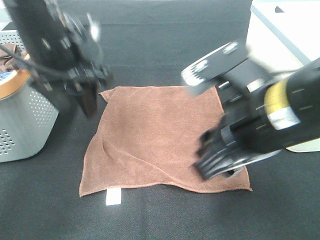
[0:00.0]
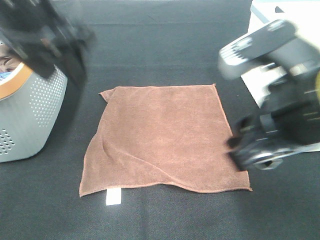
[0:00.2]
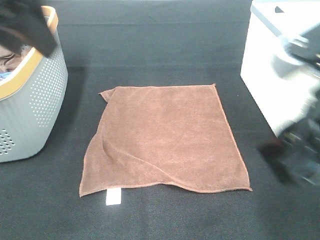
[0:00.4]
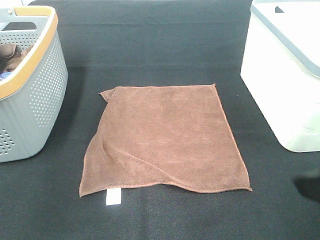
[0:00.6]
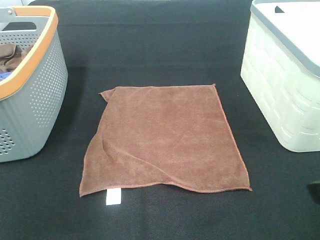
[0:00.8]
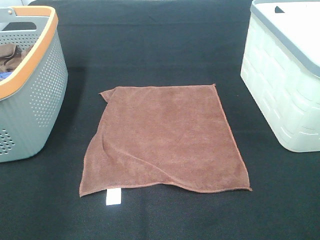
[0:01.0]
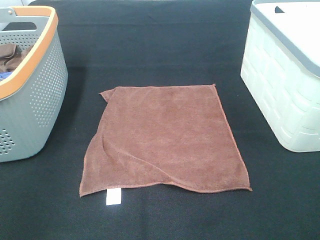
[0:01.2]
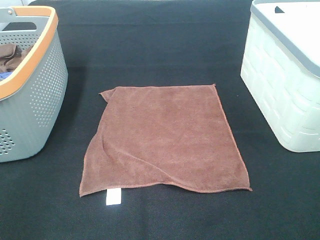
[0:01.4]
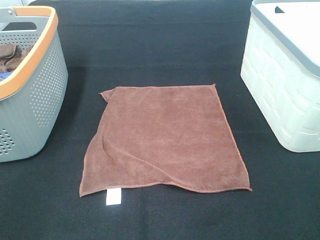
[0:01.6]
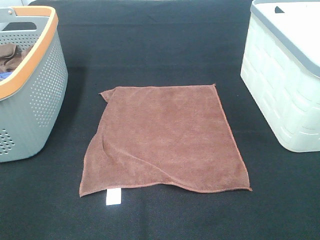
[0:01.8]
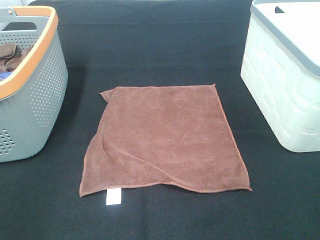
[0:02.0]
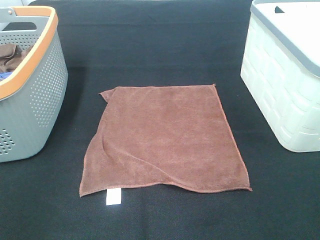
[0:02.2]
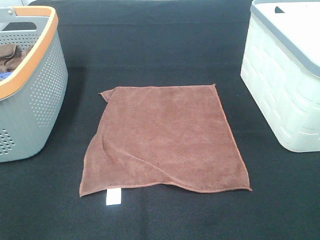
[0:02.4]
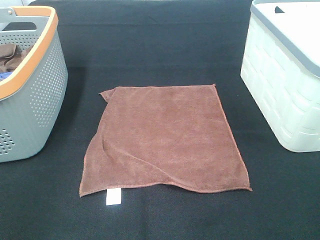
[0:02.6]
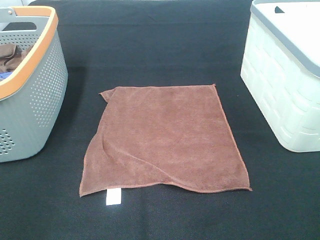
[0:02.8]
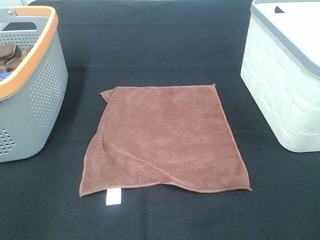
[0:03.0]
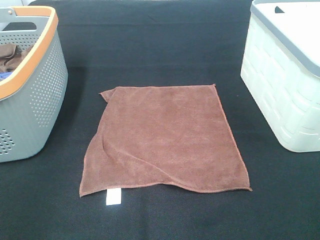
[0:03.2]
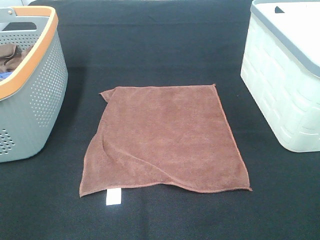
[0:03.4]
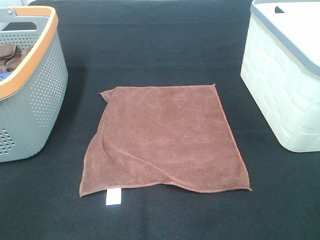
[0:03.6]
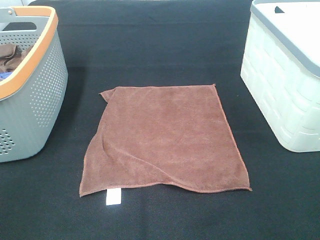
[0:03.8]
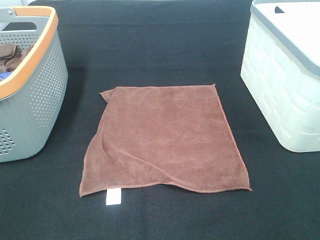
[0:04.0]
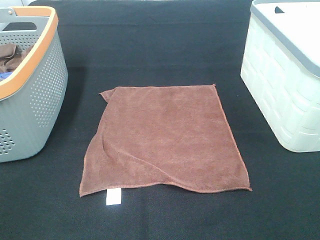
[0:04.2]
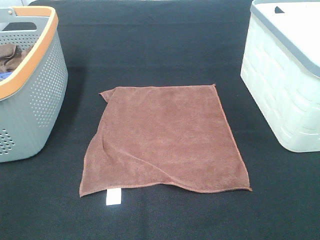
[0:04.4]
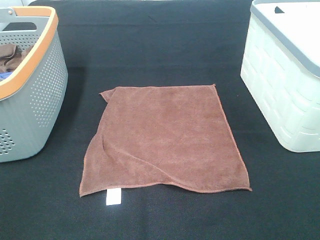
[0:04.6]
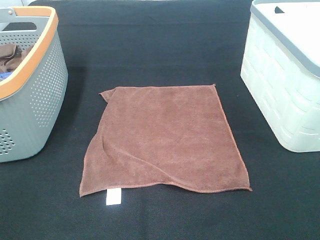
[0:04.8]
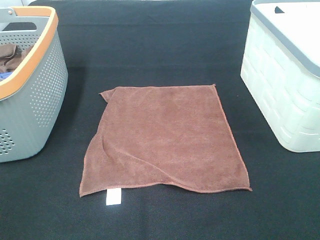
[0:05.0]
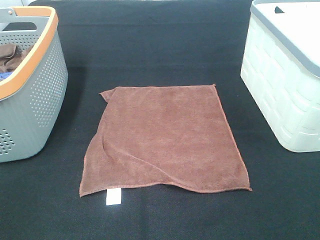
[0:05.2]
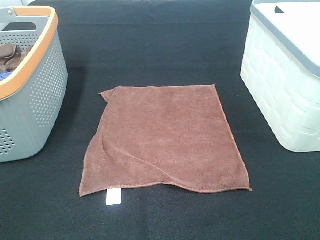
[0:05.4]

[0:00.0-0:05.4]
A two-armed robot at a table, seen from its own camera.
Task of the whole recording: Remove the towel and place it.
0:00.0 to 0:01.4: The right gripper goes about 15 cm to the right and backward. Meanwhile the left gripper goes approximately 35 cm backward and to the left.

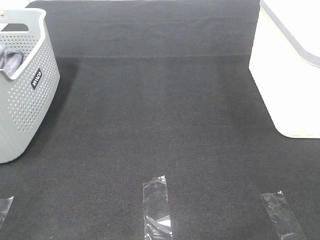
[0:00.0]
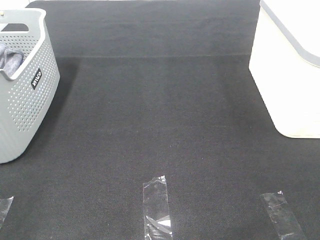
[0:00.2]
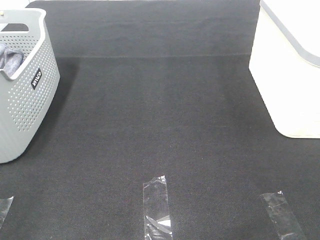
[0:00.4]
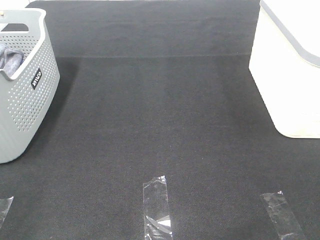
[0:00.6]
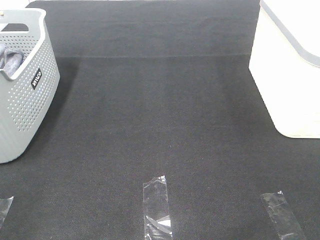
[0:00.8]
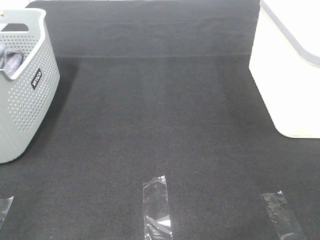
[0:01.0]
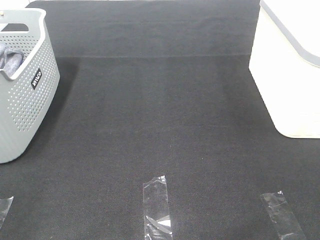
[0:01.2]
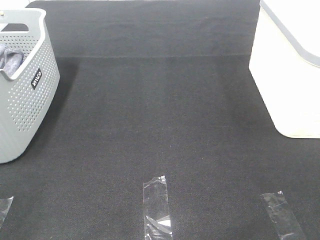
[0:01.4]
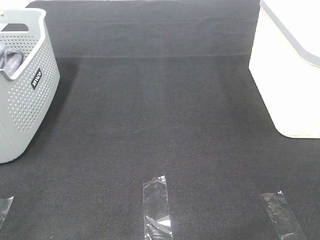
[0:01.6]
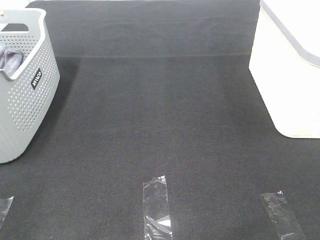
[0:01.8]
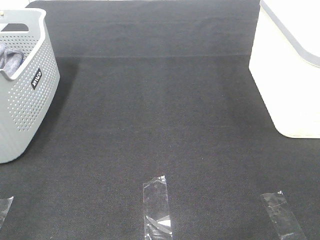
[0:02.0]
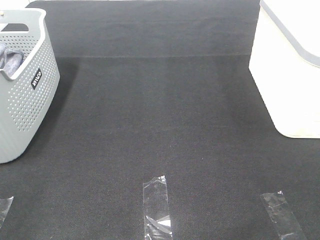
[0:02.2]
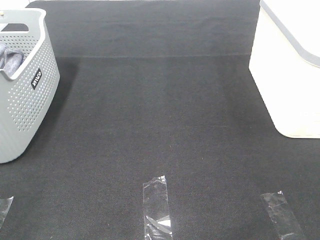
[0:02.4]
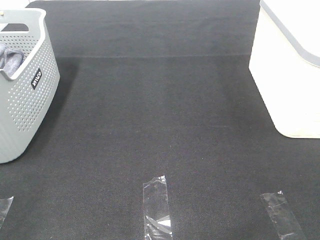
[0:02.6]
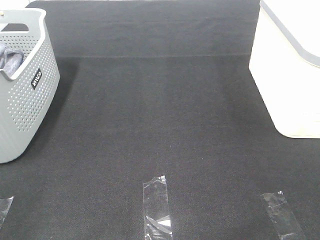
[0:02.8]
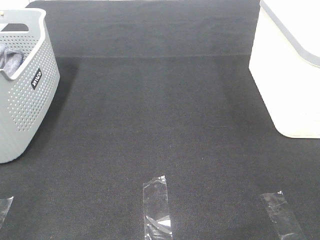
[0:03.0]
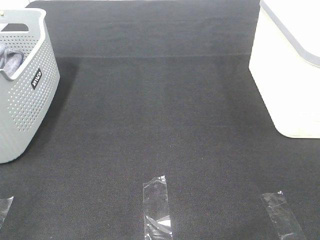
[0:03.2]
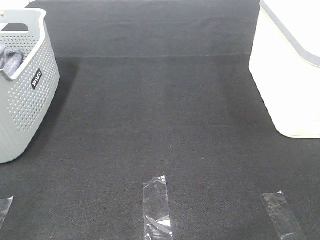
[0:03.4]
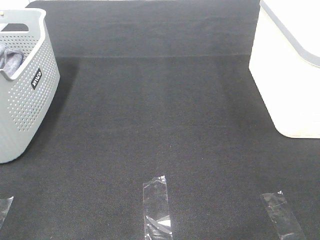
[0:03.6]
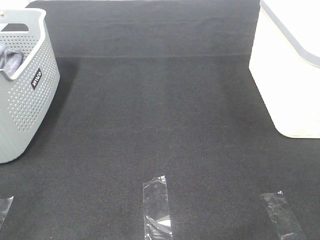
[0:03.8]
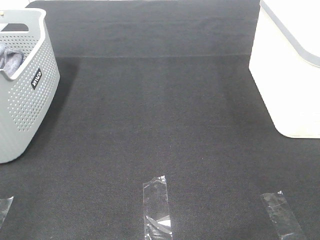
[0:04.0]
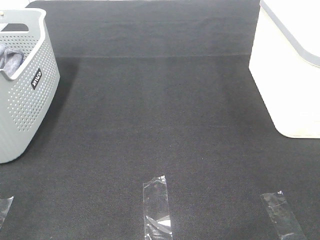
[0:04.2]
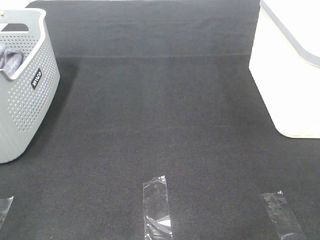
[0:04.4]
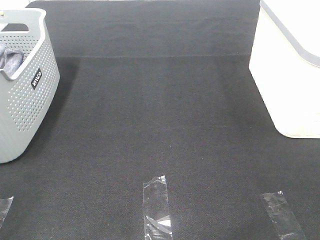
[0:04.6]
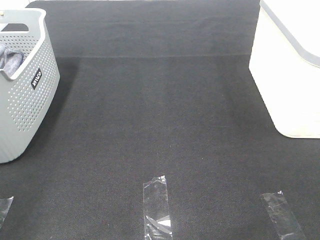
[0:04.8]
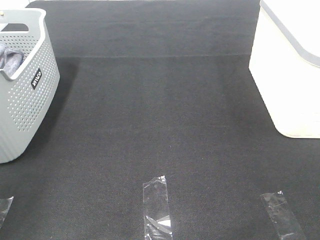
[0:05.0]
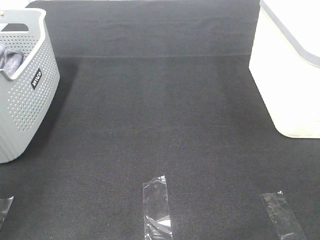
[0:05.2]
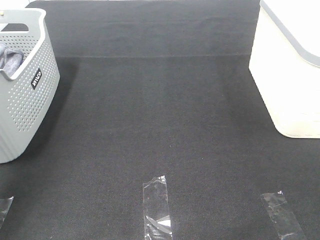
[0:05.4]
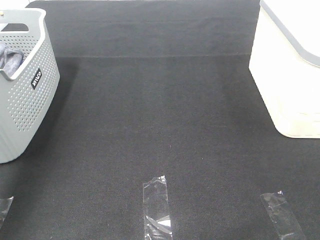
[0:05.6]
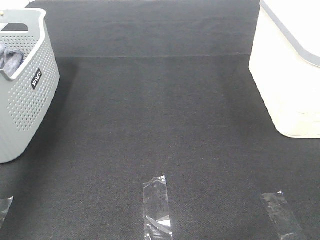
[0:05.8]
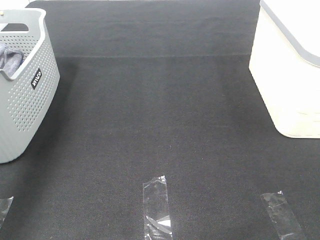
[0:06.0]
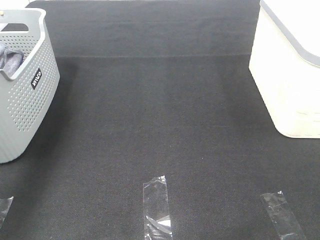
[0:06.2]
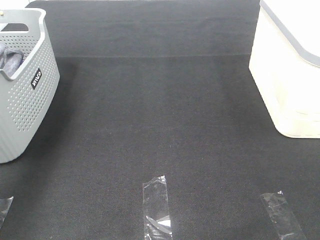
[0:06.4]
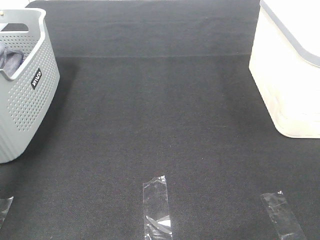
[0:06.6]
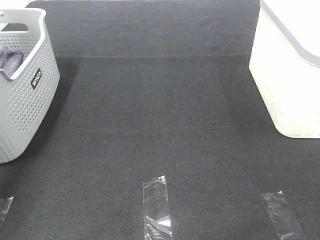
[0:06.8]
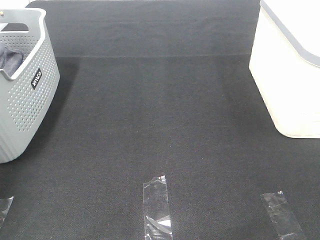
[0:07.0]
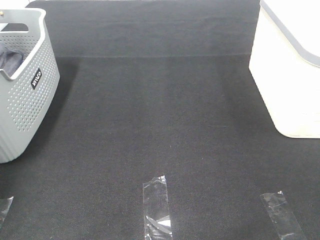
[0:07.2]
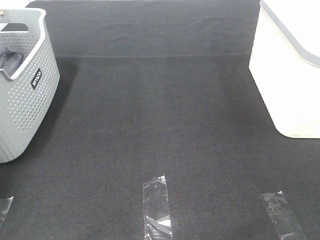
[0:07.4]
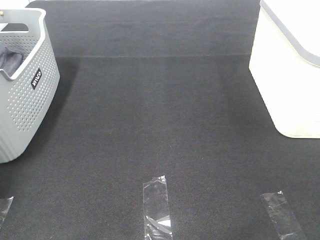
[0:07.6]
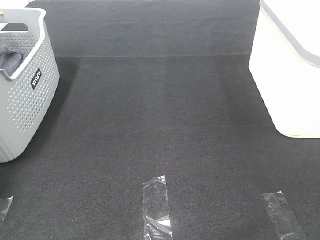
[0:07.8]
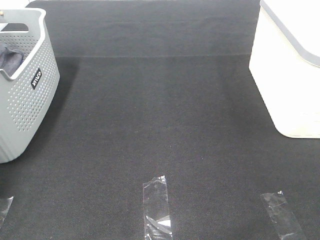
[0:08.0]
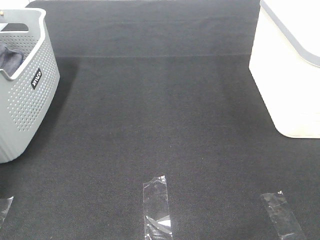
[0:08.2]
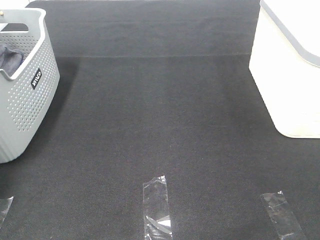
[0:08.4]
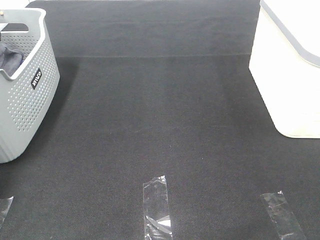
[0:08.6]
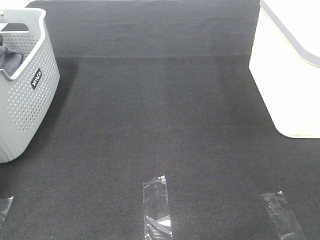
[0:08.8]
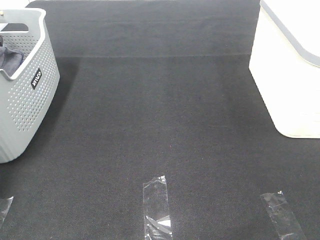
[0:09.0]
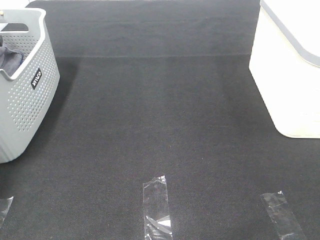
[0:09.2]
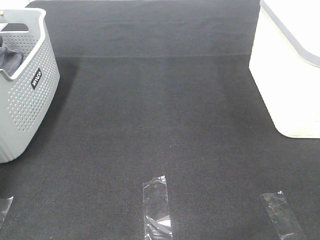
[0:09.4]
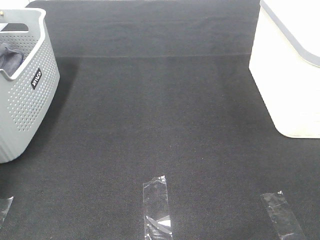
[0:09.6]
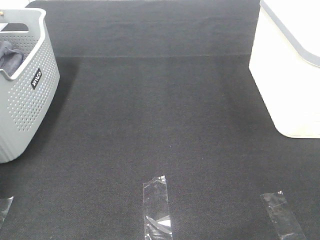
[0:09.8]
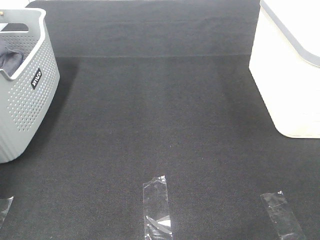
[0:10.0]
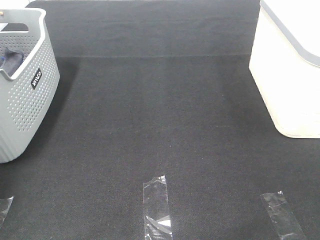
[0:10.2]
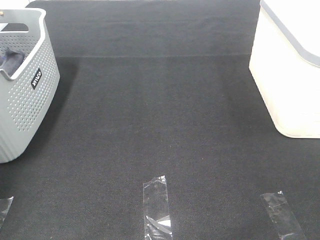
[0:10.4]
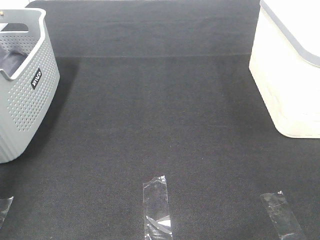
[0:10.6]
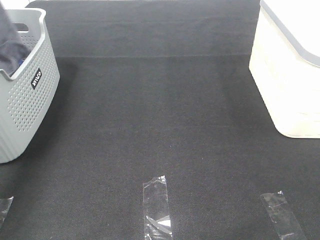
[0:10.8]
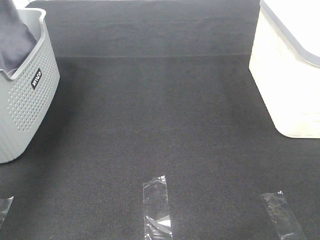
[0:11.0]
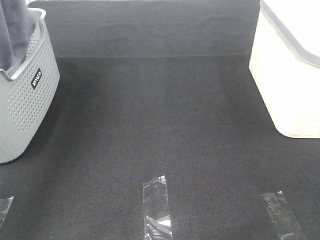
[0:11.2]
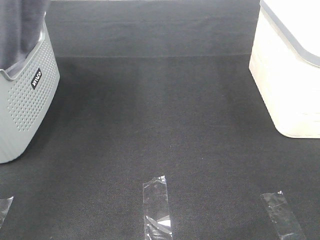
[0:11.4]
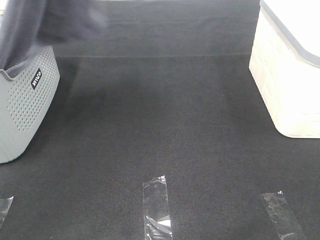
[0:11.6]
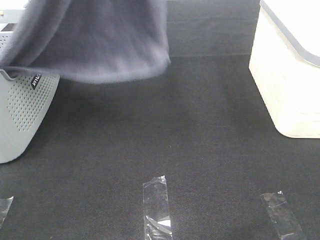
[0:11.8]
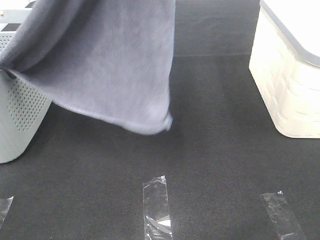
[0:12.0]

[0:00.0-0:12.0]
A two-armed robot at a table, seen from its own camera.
Task of the whole recording: Remove the towel and place it.
0:00.0 to 0:03.0: Both grippers stay put.
0:04.4 to 0:06.0: The left gripper moves forward, approximately 35 cm.
0:06.0 to 0:07.6: The left gripper travels forward, downward and to the left by approximately 20 cm.
0:09.0 to 0:10.4: The left gripper moves upward, approximately 15 cm, and closes up.
0:10.4 to 0:12.0: The left gripper shifts approximately 40 cm to the right, backward and upward.

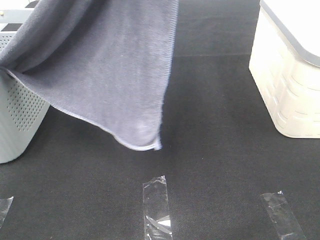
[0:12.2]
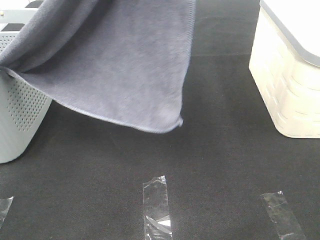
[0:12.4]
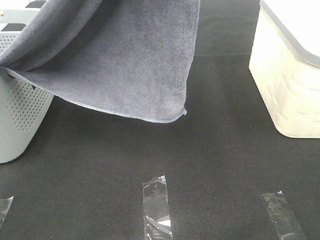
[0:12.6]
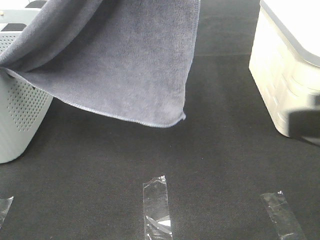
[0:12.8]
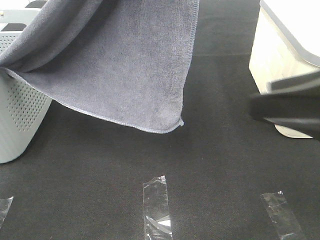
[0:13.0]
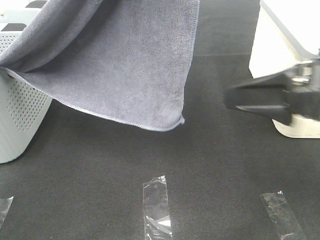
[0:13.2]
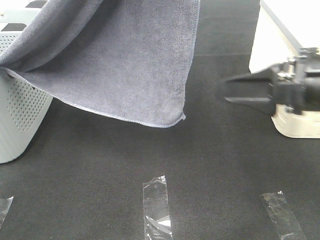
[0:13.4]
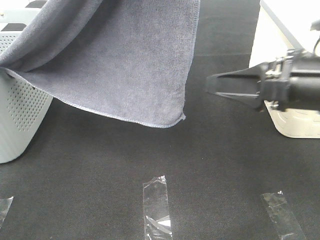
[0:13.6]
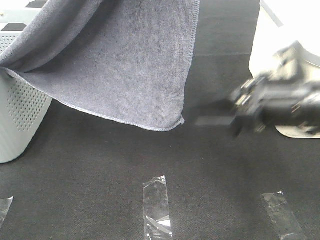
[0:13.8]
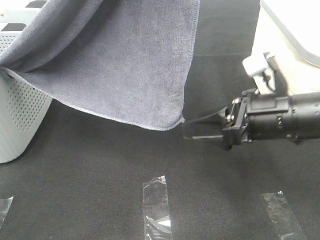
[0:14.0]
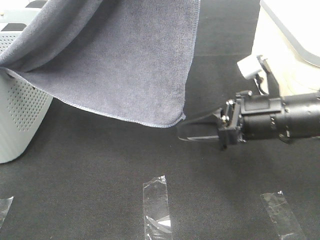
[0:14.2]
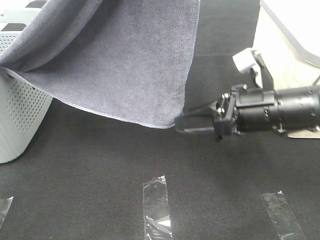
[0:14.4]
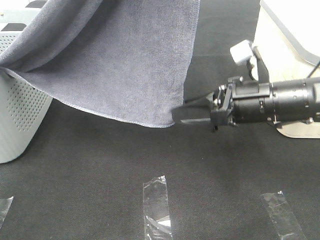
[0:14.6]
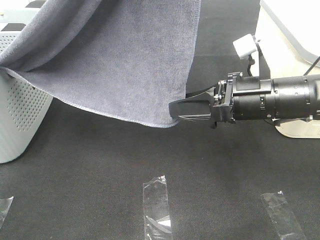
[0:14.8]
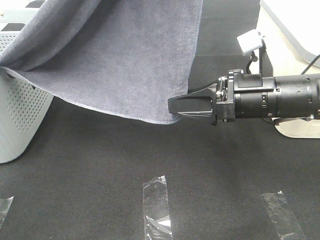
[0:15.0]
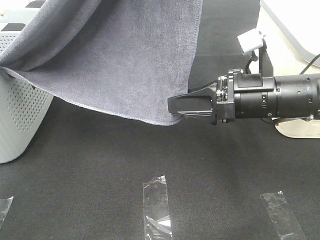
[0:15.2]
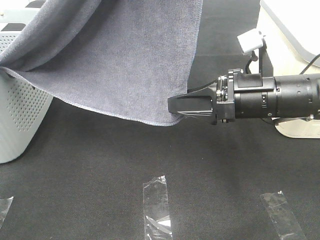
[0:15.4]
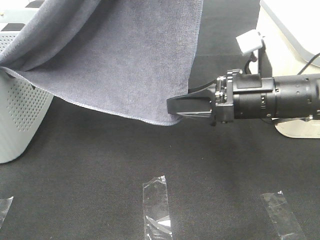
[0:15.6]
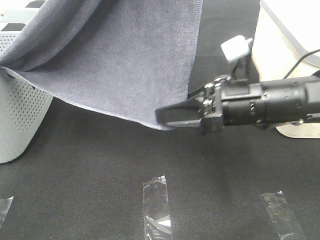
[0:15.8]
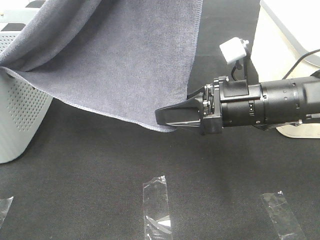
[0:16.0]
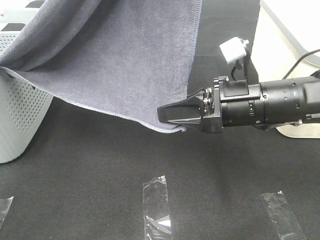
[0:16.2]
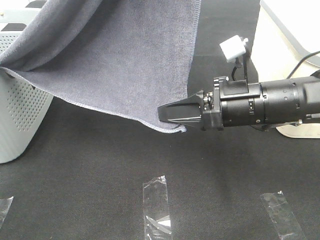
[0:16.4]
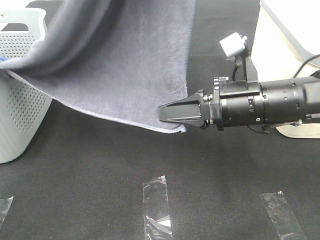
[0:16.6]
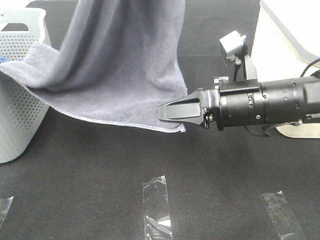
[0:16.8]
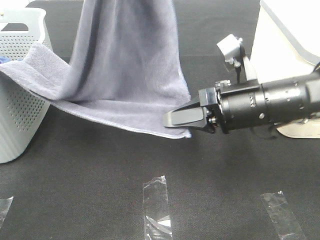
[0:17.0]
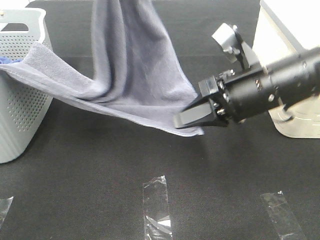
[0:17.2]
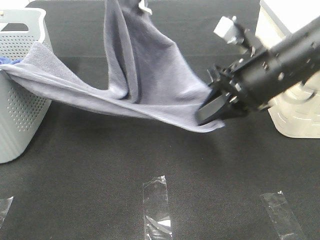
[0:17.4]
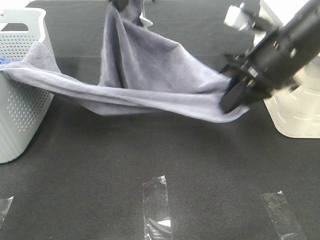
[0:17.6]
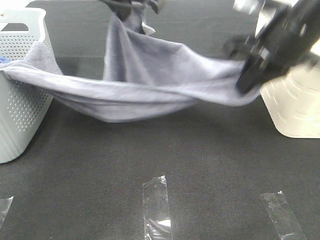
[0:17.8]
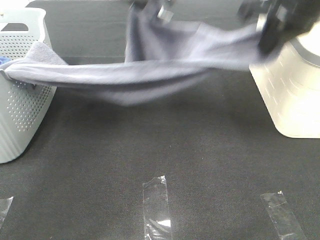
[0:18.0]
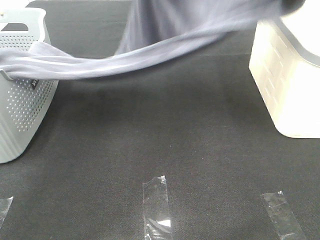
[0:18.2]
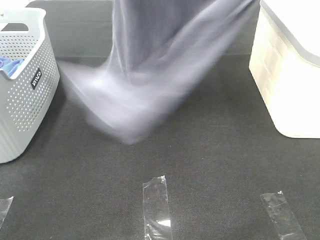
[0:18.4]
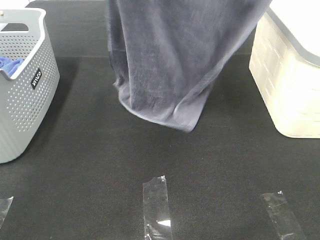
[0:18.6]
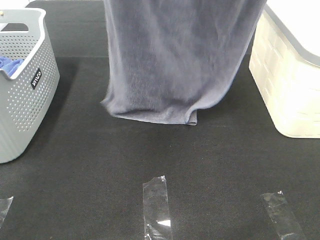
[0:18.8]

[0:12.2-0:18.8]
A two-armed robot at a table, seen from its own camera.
Task of the whole recording: Remove the towel and place it.
Step, 0:12.2 to 0:15.0: Right hand: grab a corner of the grey towel and straighten it.
0:12.2 to 0:13.8: The right gripper goes approximately 25 cm forward and downward.
0:13.8 to 0:15.4: There are only small adjustments of the grippers.
0:15.4 to 0:17.2: The right gripper closes. The left gripper moves downward and forward, about 10 cm.
0:17.2 to 0:18.8: The right gripper shifts about 30 cm upward, while the left gripper is displaced upward by about 10 cm.
